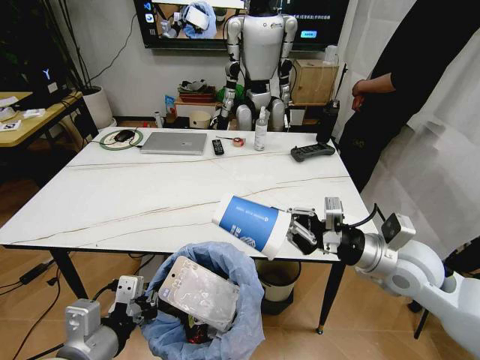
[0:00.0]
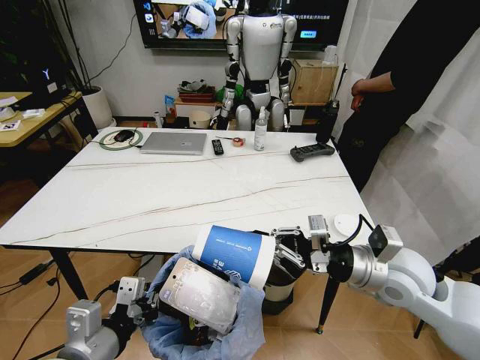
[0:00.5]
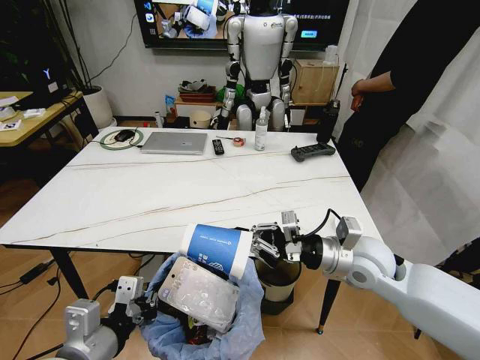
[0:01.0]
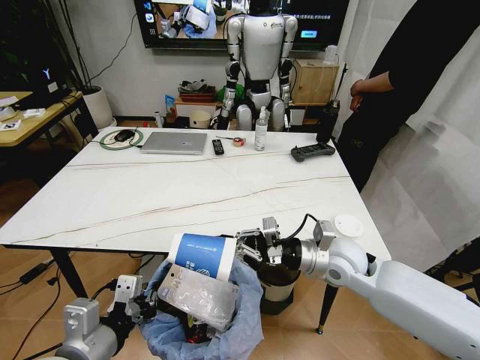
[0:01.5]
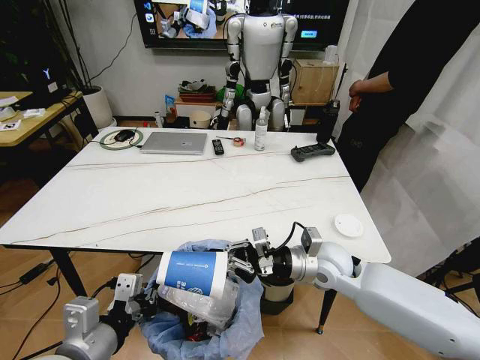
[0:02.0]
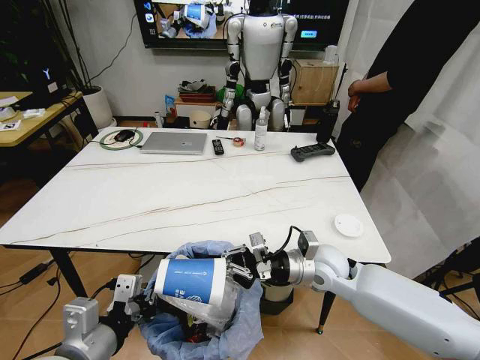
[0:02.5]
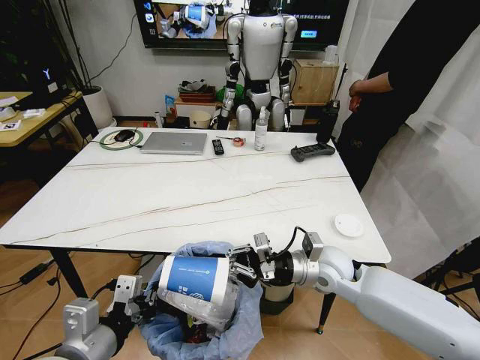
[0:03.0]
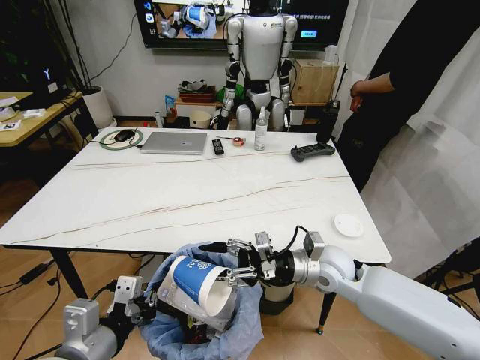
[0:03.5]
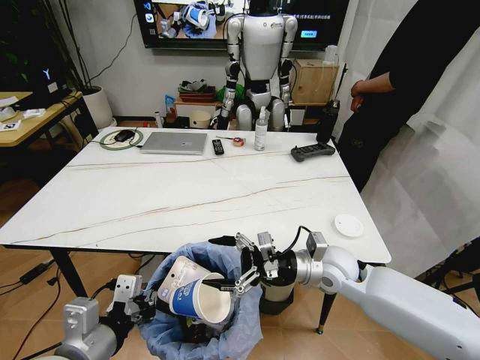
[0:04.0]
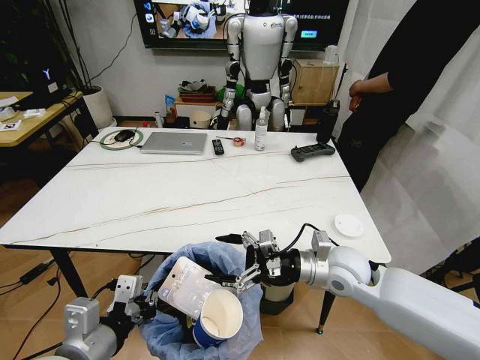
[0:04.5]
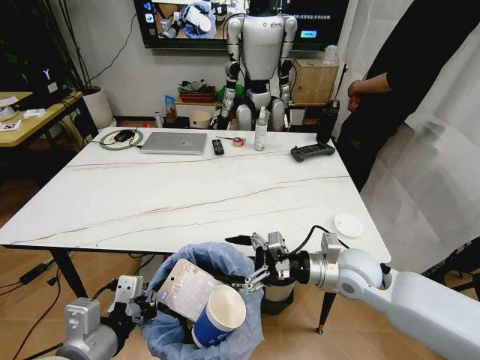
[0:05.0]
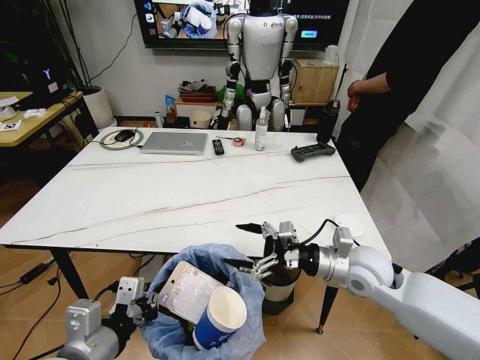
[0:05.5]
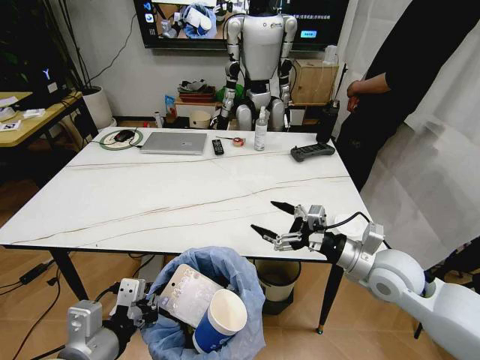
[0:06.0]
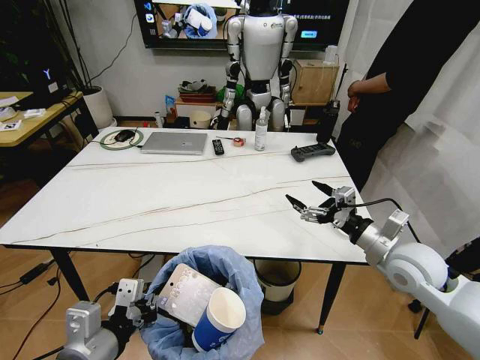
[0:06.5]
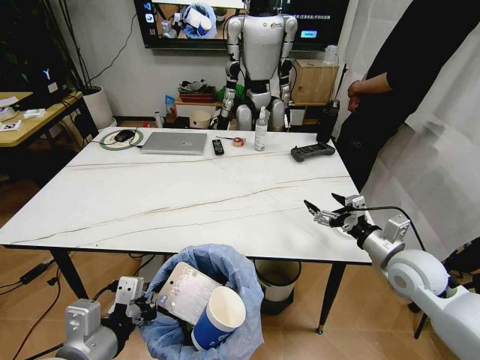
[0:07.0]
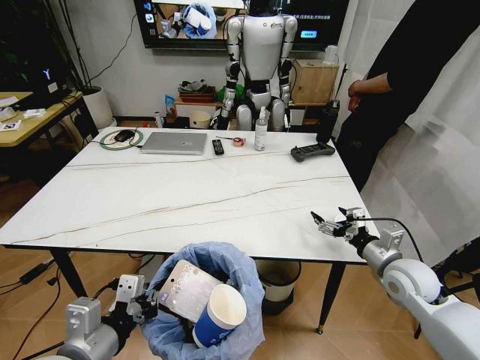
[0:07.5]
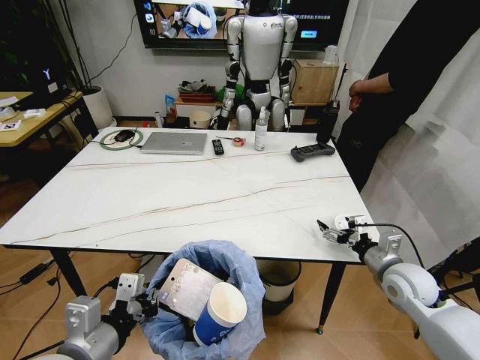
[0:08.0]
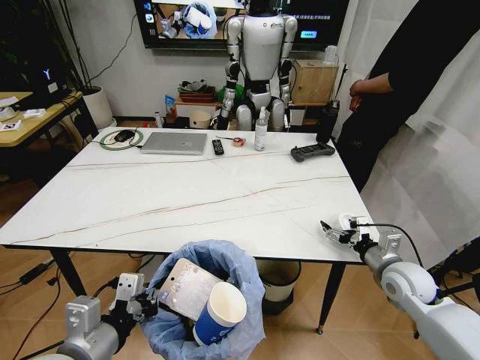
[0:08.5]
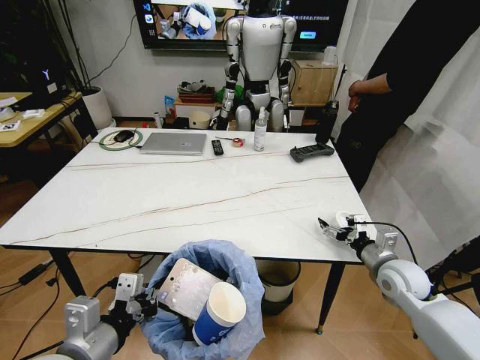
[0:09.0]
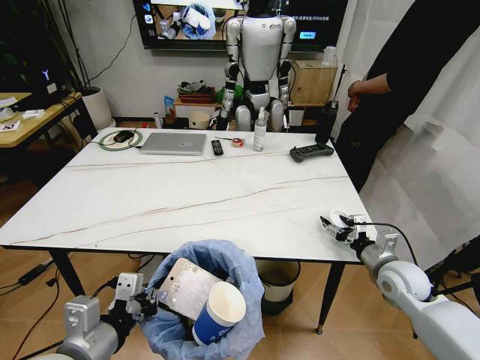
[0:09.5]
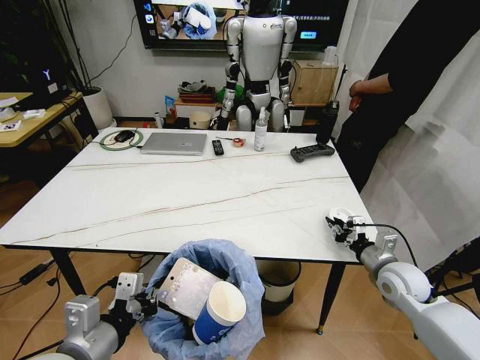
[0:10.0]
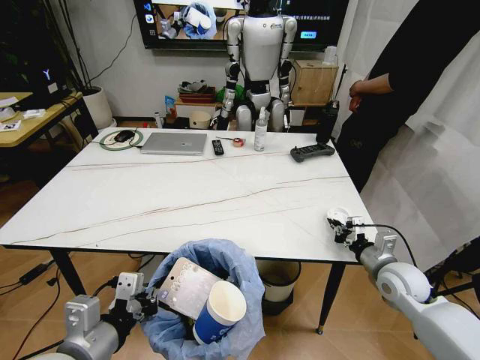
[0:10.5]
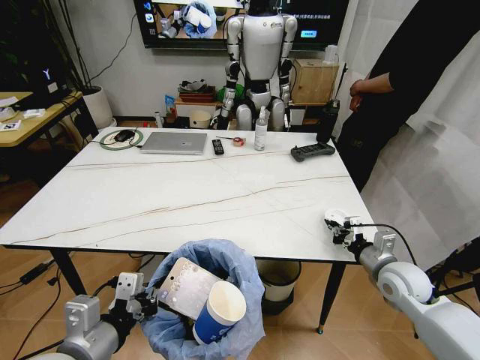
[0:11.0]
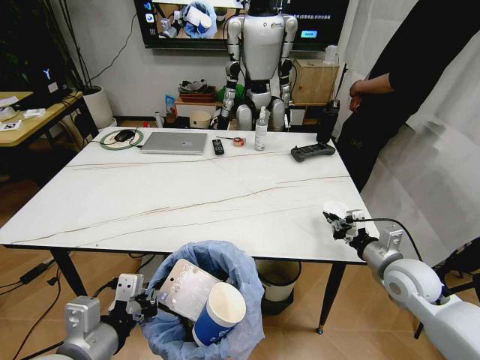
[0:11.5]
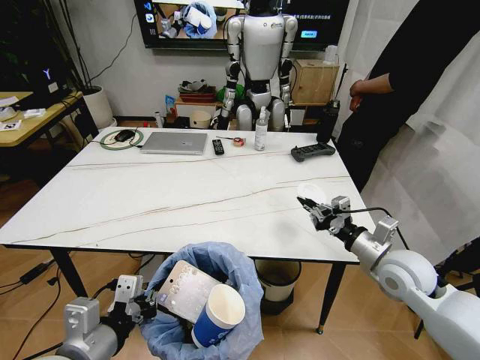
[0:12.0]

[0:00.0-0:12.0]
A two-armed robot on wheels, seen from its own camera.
Task of the whole recording: Pick up the trash bin and place the trash from the table into it.
0:00.0 to 0:02.0: The right gripper is displaced to the left, downward and forward by some 15 cm.
0:02.0 to 0:04.0: The right gripper opens its fingers.
0:04.0 to 0:06.0: The right gripper shifts about 10 cm to the right and upward.
0:06.0 to 0:08.0: The right gripper goes roughly 10 cm downward and to the right.
0:08.0 to 0:10.0: The right gripper closes up.
0:10.0 to 0:12.0: The right gripper is displaced upward by some 10 cm.

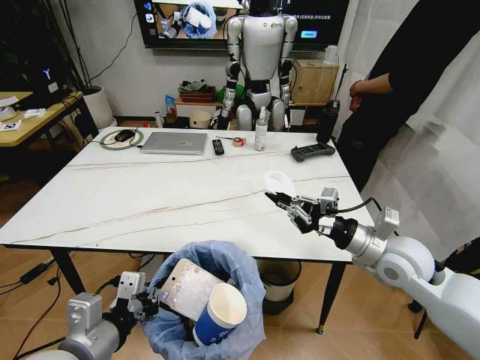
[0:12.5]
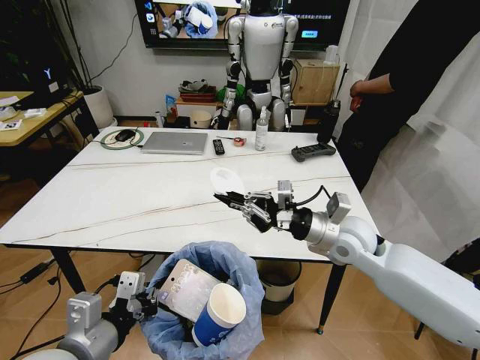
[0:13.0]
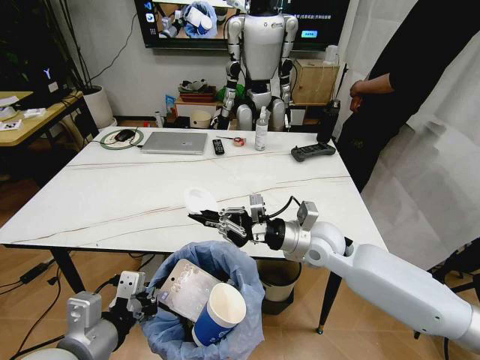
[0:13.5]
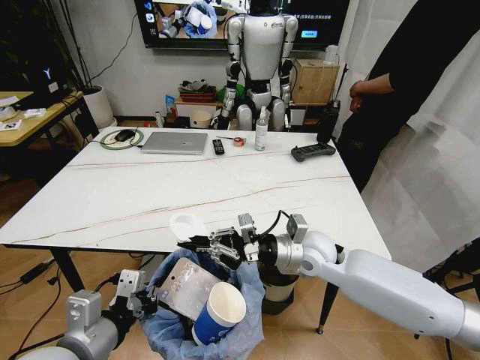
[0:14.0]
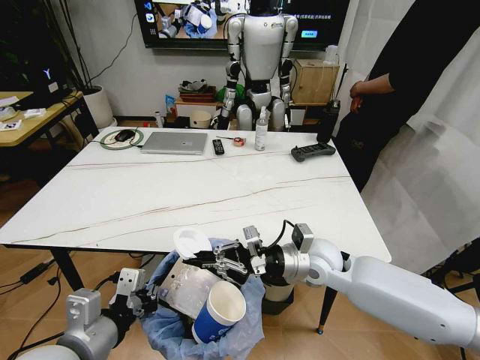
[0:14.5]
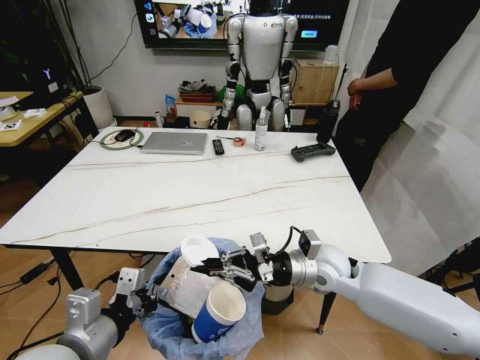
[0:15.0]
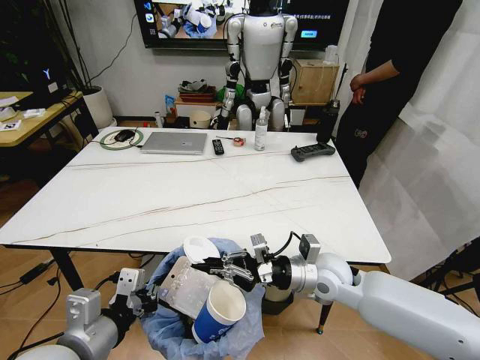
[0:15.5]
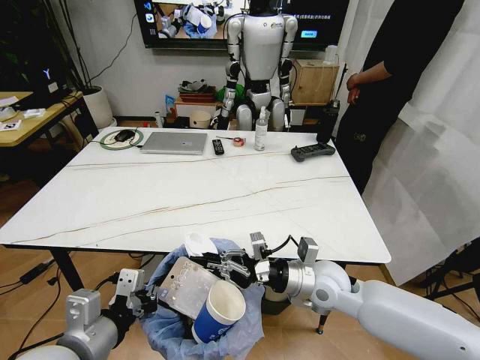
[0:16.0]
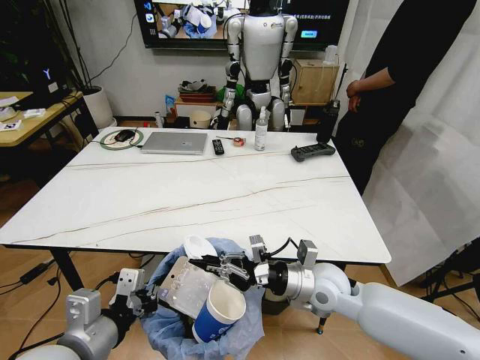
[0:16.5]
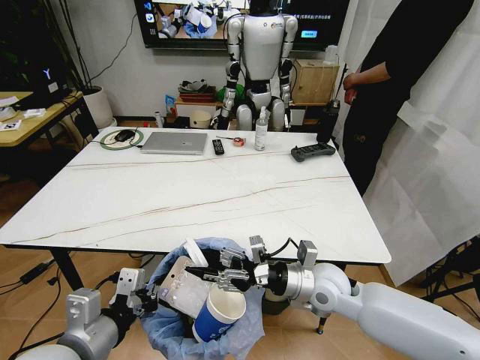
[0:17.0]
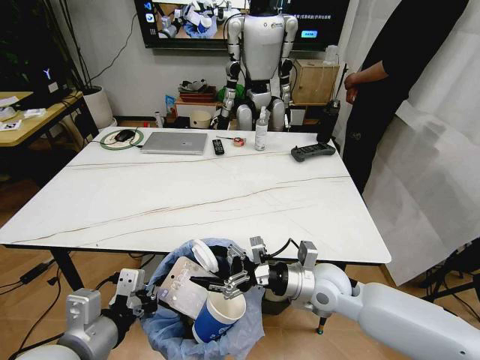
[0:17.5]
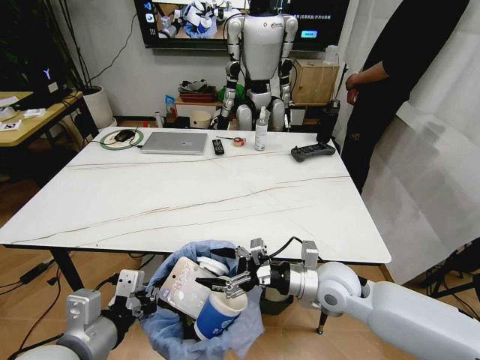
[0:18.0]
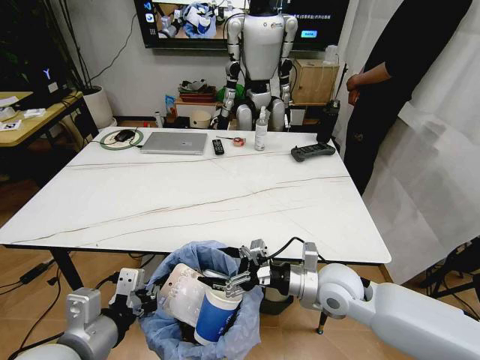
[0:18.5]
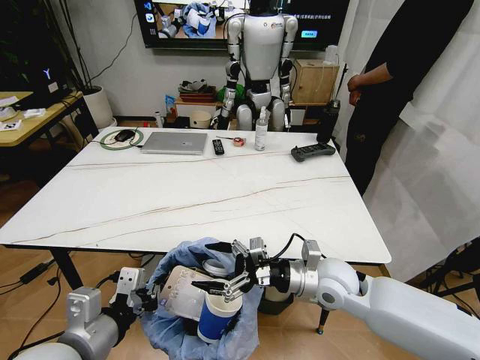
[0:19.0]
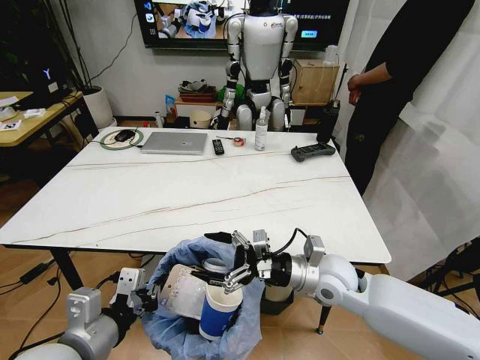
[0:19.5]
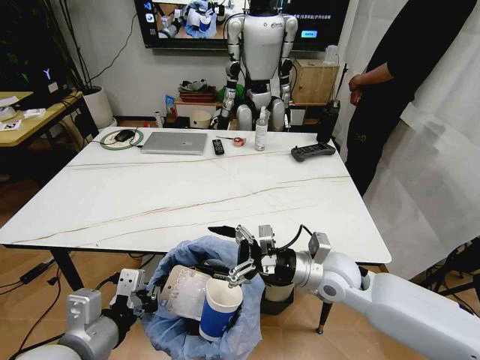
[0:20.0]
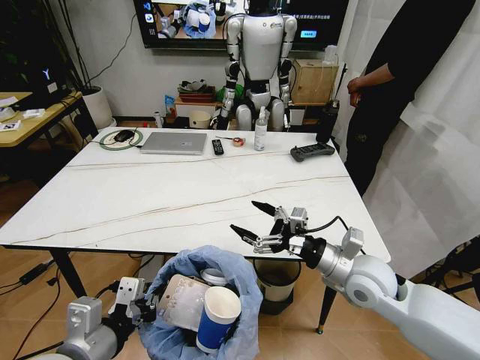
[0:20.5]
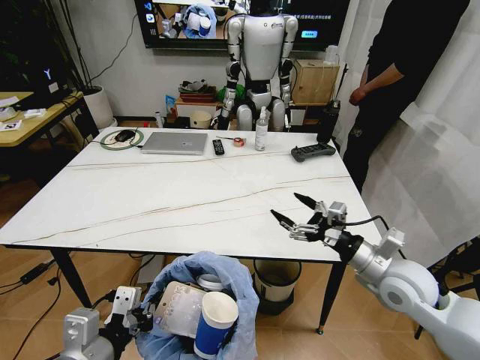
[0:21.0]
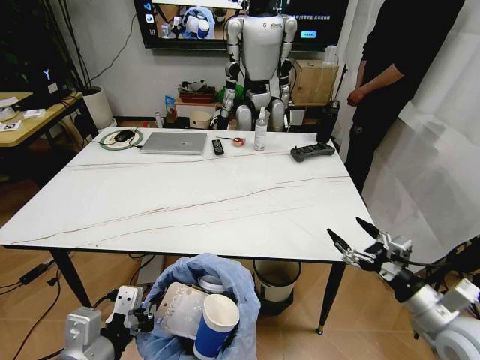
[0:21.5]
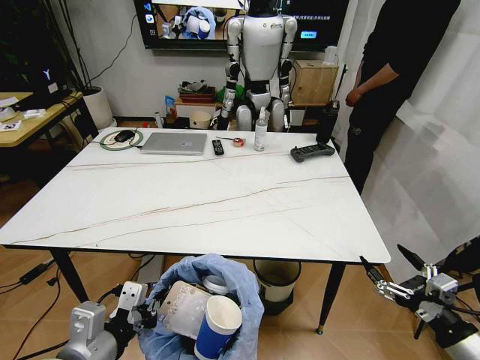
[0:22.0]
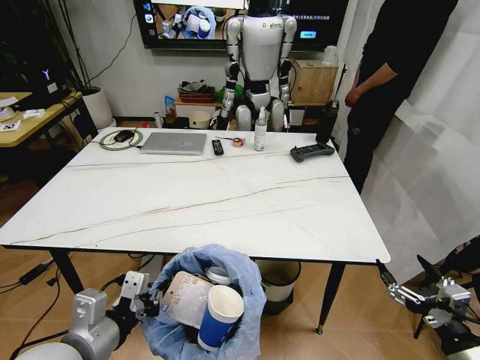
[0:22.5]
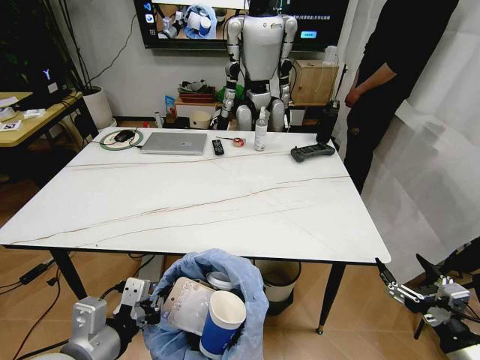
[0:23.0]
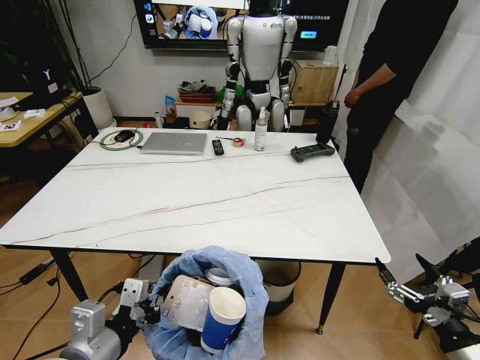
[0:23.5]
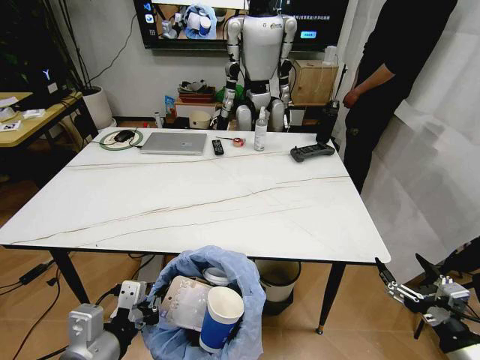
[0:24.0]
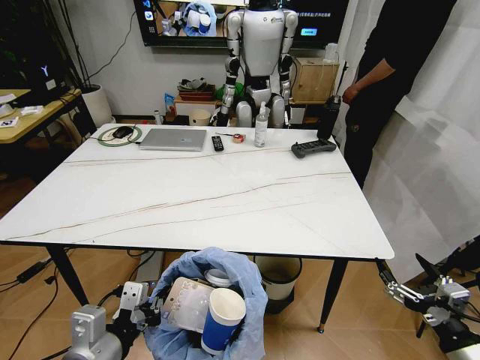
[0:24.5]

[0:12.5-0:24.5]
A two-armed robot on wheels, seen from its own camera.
Task of the whole recording: Pick up the trash bin and place the trash from the table into it.
0:12.5 to 0:14.5: The right gripper goes roughly 15 cm to the left and downward.
0:14.5 to 0:16.5: The right gripper changes place by some 5 cm.
0:16.5 to 0:18.5: The right gripper opens up.
0:18.5 to 0:20.5: The right gripper heads to the right, covering approximately 5 cm.
0:20.5 to 0:22.5: The right gripper moves backward and to the right, some 25 cm.

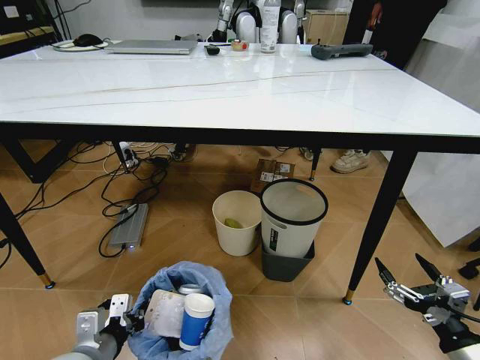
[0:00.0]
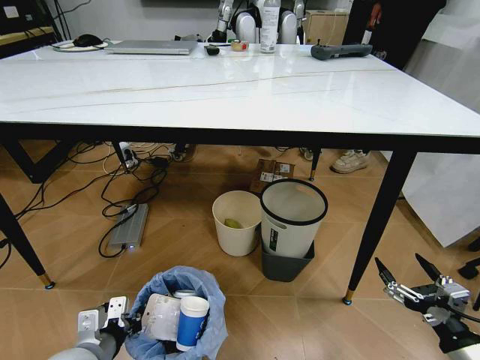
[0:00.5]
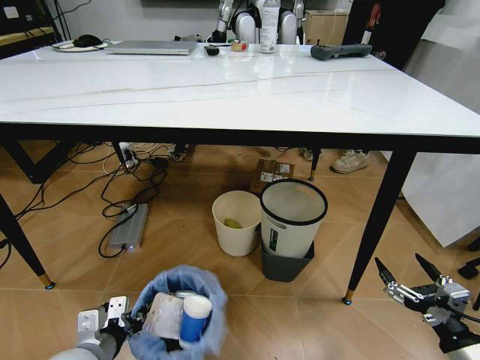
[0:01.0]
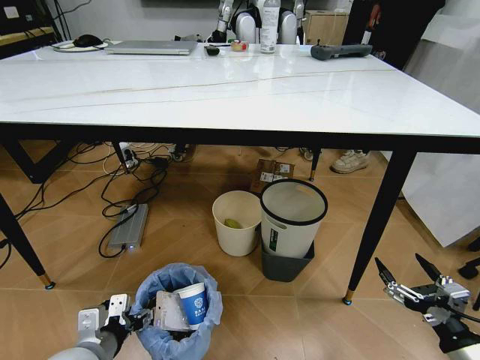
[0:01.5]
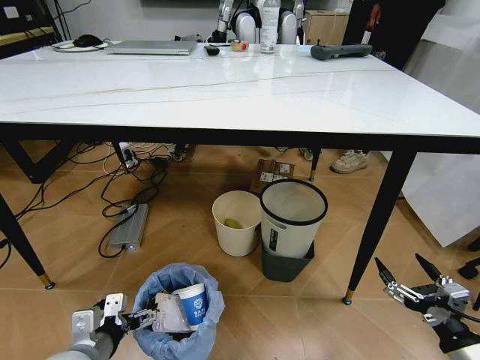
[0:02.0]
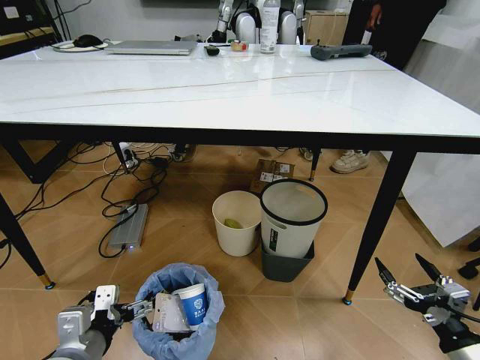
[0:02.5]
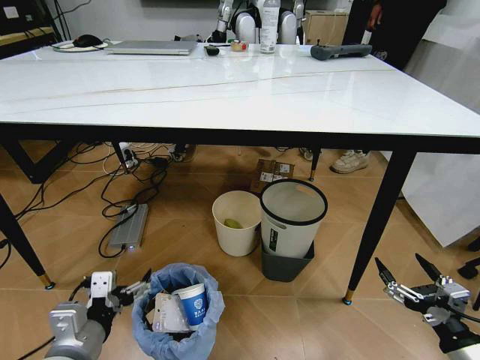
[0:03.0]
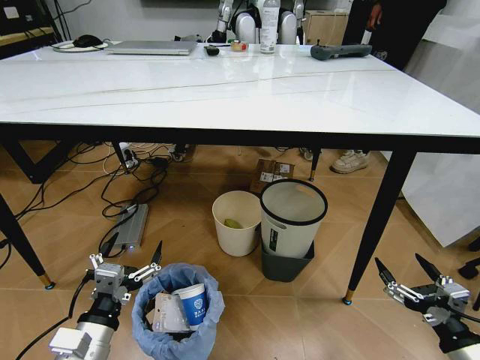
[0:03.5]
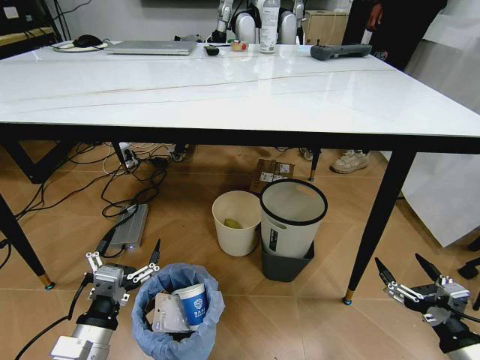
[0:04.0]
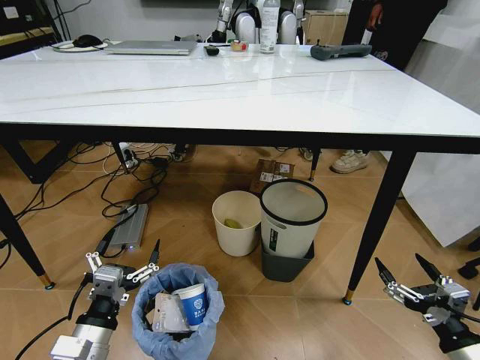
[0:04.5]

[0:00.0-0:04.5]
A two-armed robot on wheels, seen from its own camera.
Task of the whole recording: Pick up the trash bin and place the trash from the table into it.
0:00.0 to 0:02.0: The left gripper opens up.
